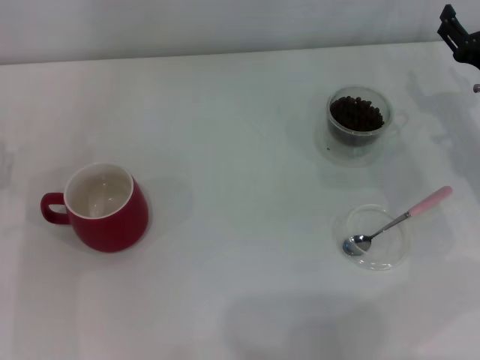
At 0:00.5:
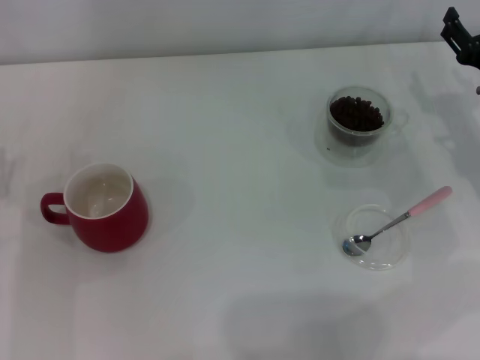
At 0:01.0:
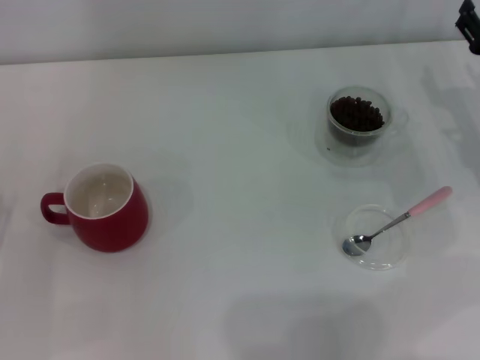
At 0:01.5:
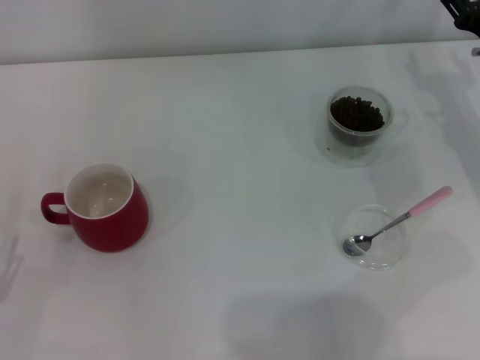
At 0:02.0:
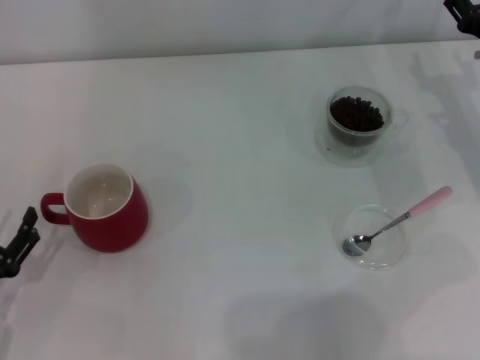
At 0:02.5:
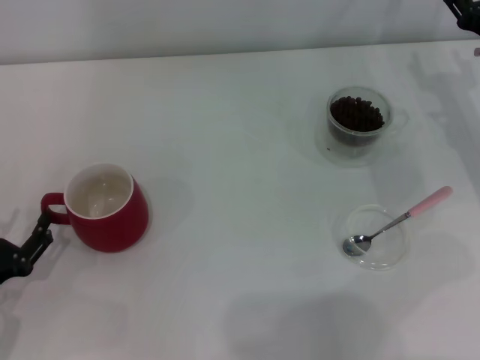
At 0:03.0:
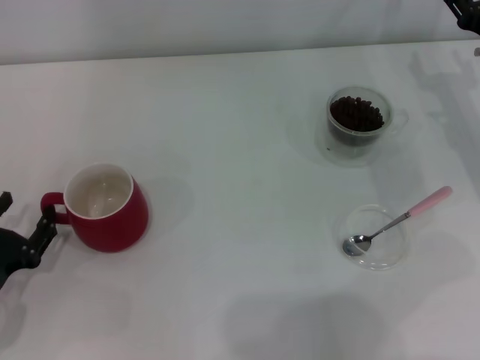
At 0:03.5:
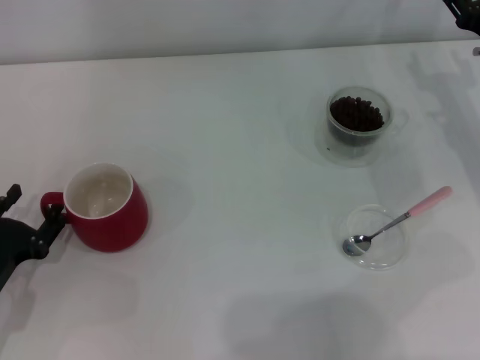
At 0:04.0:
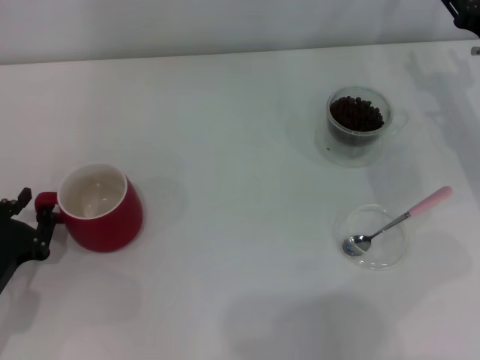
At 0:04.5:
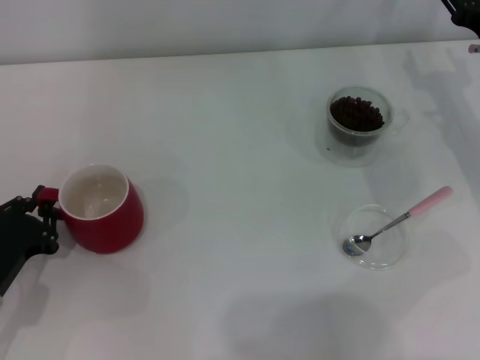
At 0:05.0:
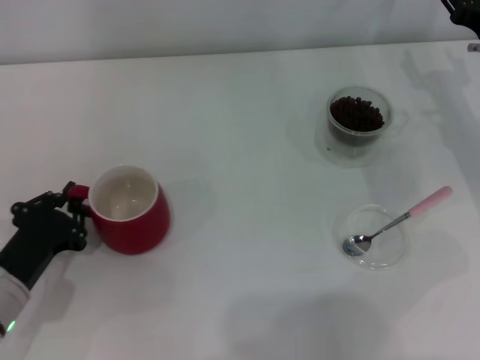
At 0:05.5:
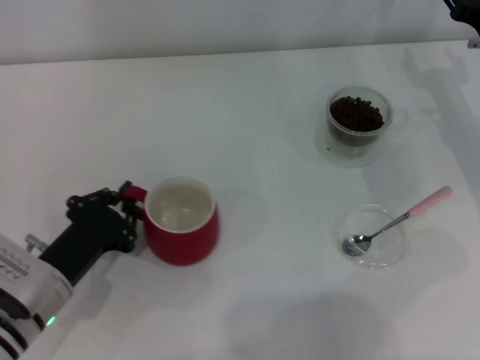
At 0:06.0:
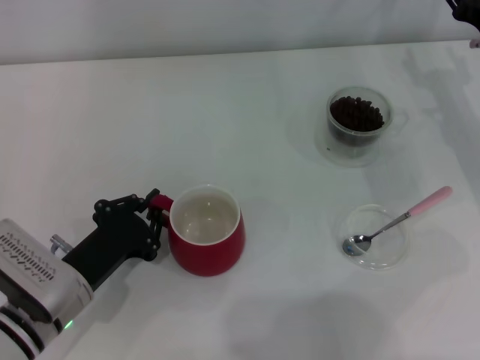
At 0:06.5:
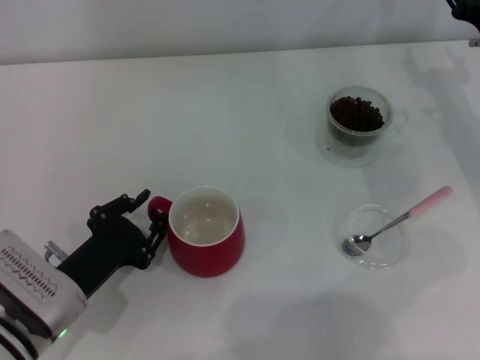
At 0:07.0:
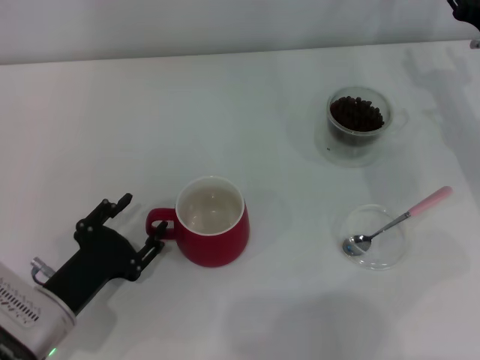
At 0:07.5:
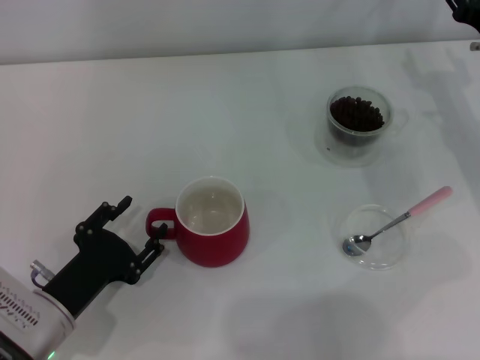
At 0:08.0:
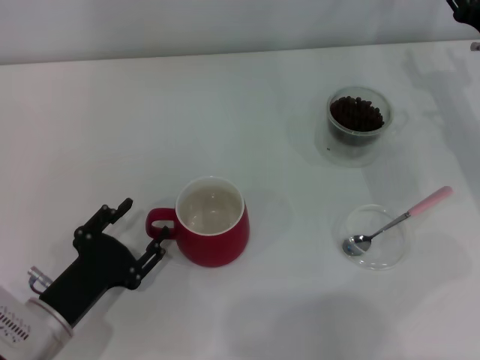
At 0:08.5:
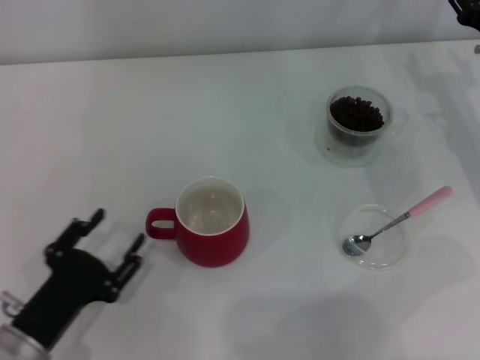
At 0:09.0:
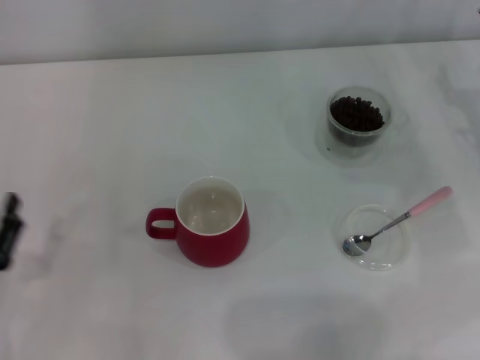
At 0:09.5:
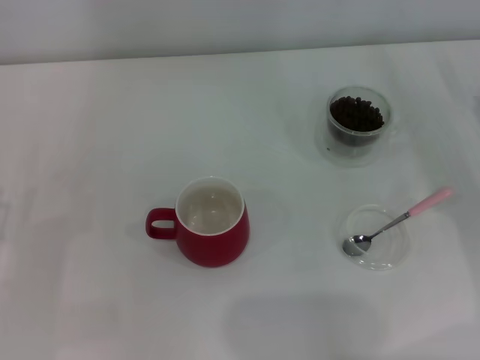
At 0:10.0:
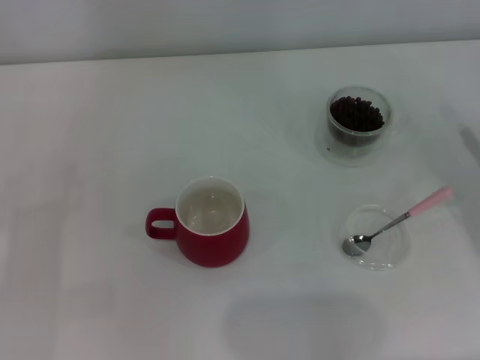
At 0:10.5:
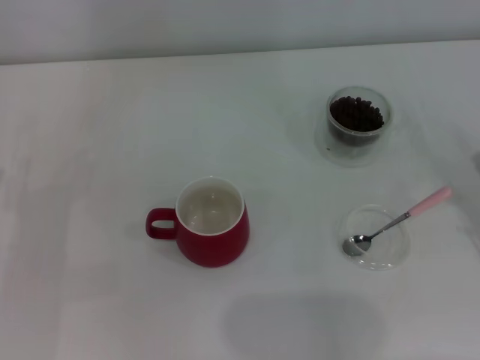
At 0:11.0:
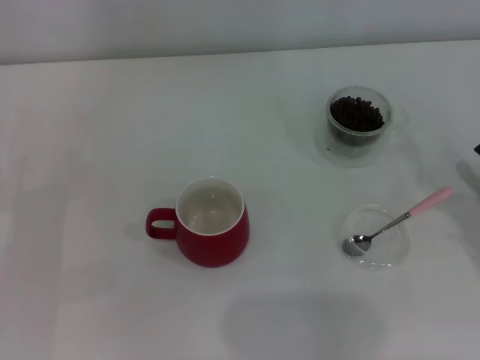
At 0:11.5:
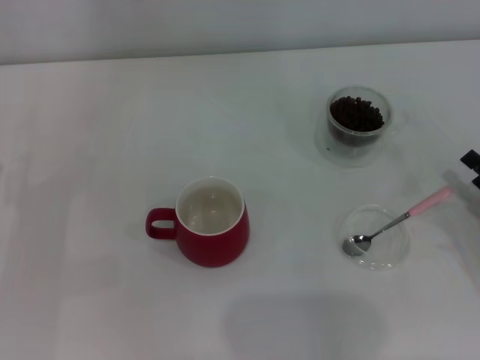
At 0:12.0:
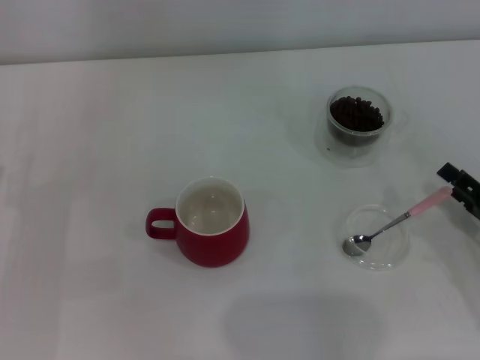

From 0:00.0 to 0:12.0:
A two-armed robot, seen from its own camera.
Task of the whole recording: Use a pink spoon to take out the coffee beans from the glass and pour them into the red cup.
Step, from 0:00.0 to 0:08.5: Move the cup to the center of view with the left gripper.
From 0:00.0 to 0:02.0: The left gripper shifts some 10 cm backward.
From 0:02.0 to 0:04.0: The left gripper closes.
From 0:04.0 to 0:06.0: The left gripper travels to the right by some 10 cm, and closes.
From 0:06.0 to 0:08.0: The left gripper opens.
From 0:08.0 to 0:10.0: The right gripper moves backward, to the right and downward, some 15 cm. Meanwhile the left gripper is displaced to the left by about 10 cm.
From 0:10.0 to 0:12.0: The right gripper heads backward, covering some 5 cm.

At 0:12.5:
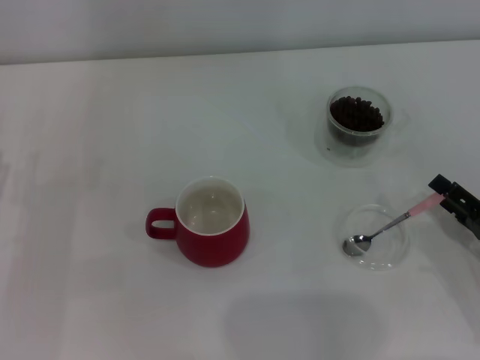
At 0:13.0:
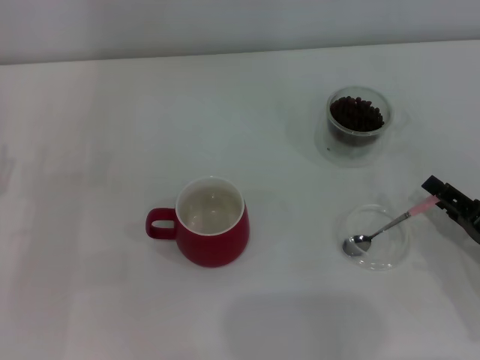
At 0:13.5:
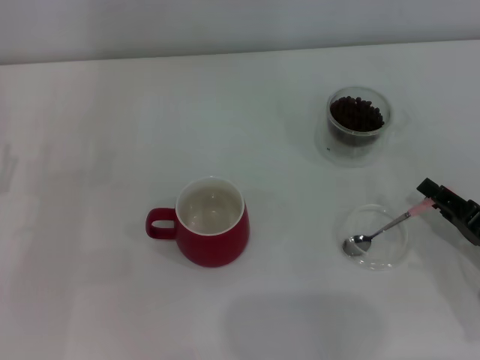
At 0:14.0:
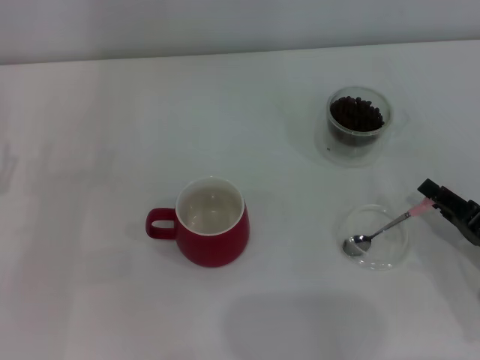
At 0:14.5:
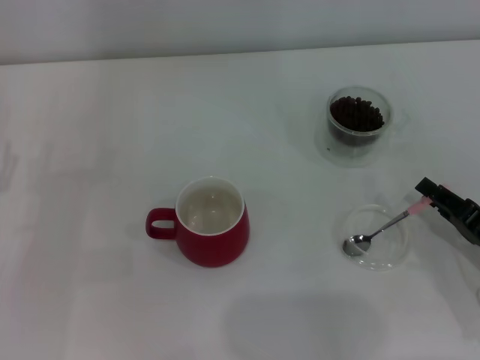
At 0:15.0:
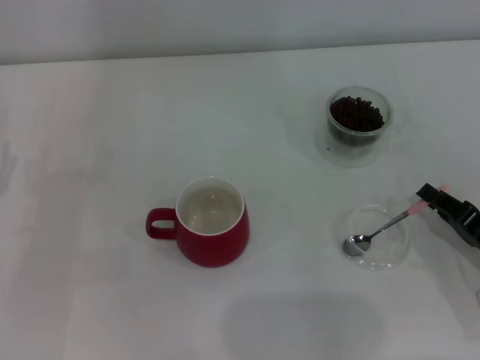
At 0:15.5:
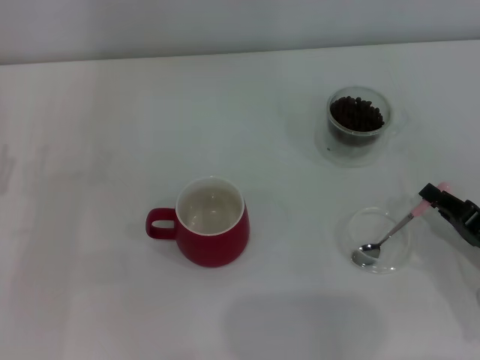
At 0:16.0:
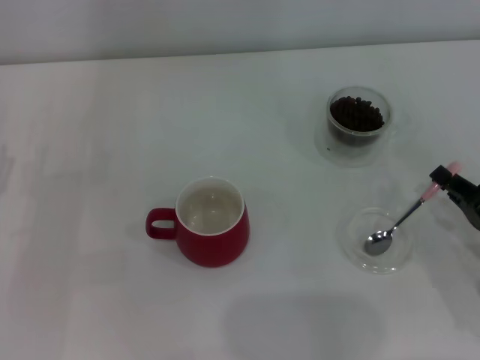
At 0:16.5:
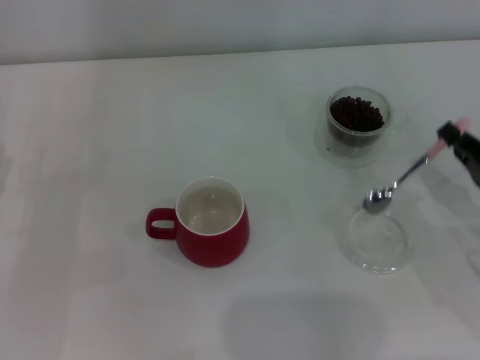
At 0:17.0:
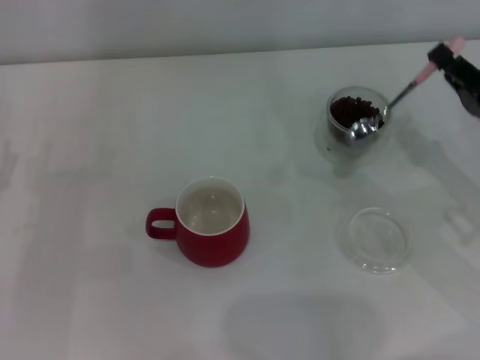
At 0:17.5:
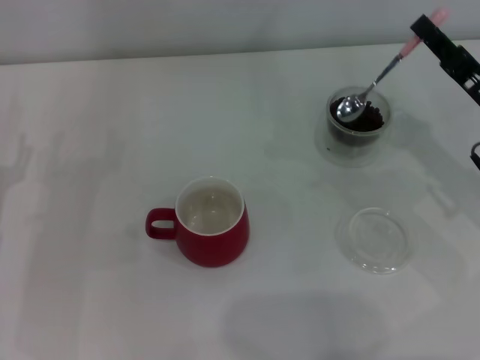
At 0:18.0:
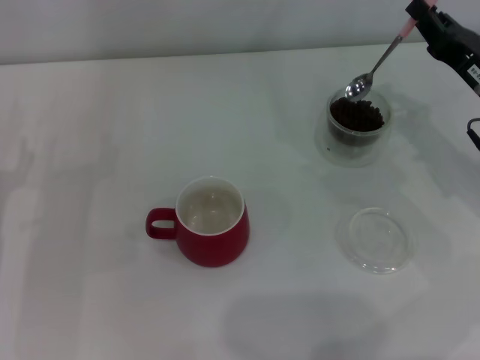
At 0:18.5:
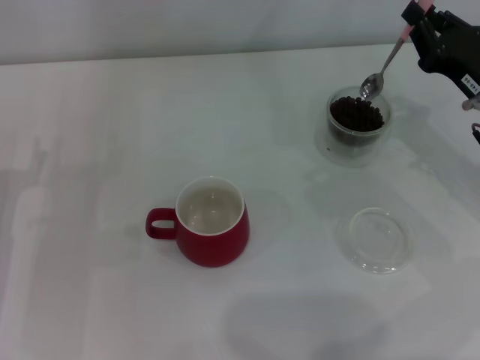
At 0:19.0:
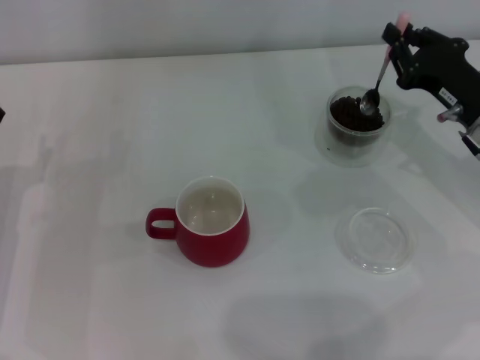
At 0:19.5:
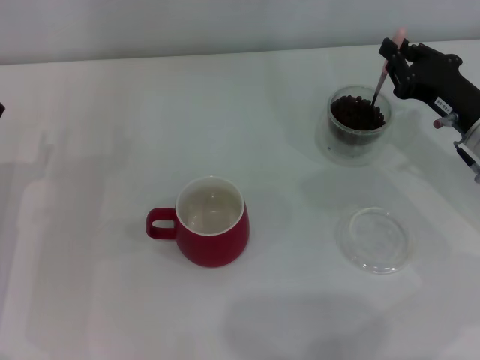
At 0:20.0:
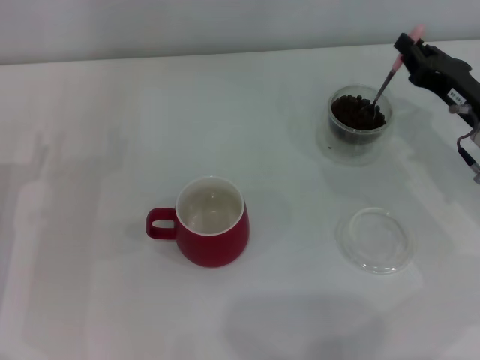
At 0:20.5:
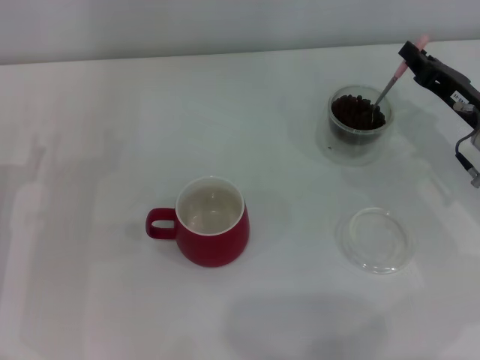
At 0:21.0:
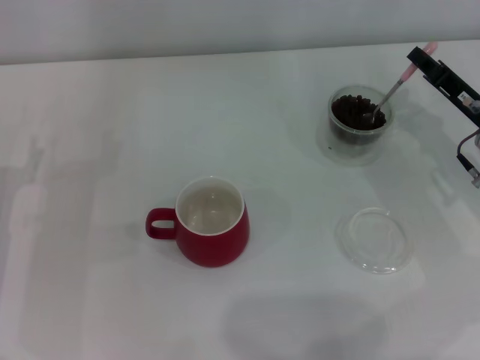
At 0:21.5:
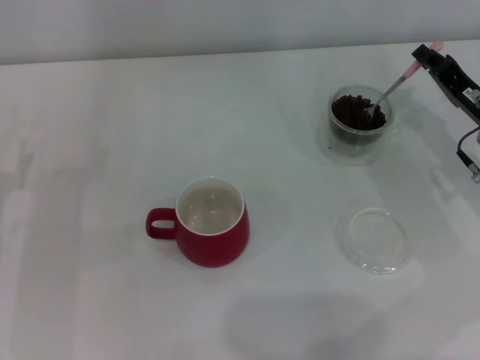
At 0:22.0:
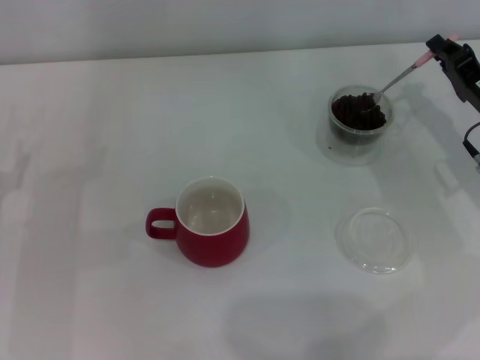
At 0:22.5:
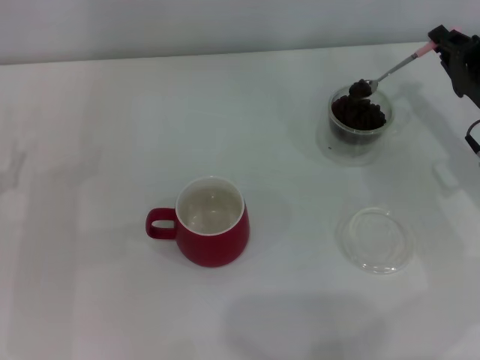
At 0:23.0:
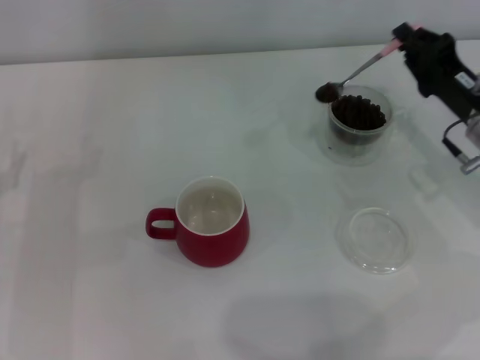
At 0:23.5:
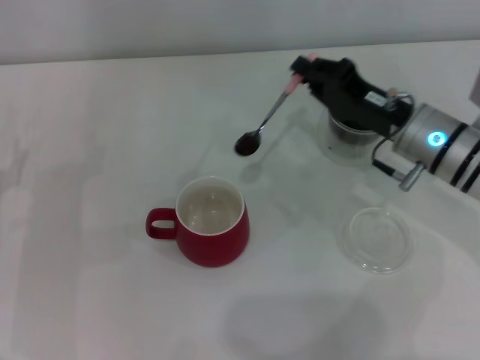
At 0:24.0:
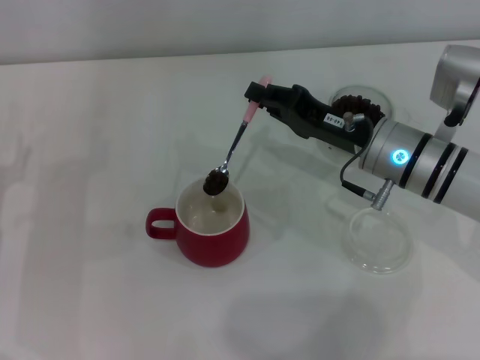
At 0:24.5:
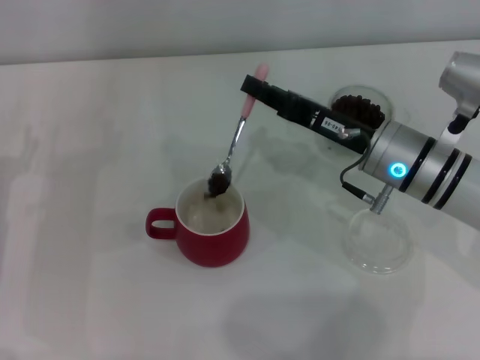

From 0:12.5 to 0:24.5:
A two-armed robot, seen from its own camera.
Task of the whole recording: Use a pink spoon to take out the coffee beans from the glass and pour them into the red cup.
Step, from 0:12.5 to 0:16.0: Pick up the spoon with the right gripper.
From 0:12.5 to 0:14.5: The right gripper closes its fingers.
From 0:14.5 to 0:16.5: The right gripper closes up.
From 0:16.5 to 0:18.5: The right gripper shifts about 10 cm forward and upward.
From 0:22.5 to 0:24.5: The right gripper moves to the left, roughly 15 cm.

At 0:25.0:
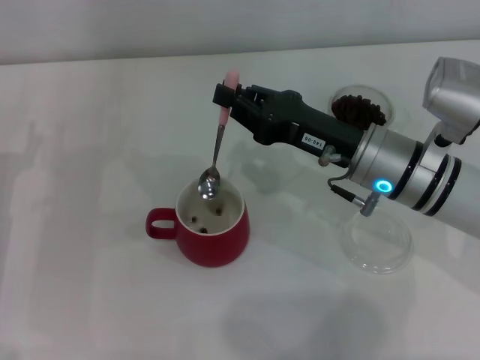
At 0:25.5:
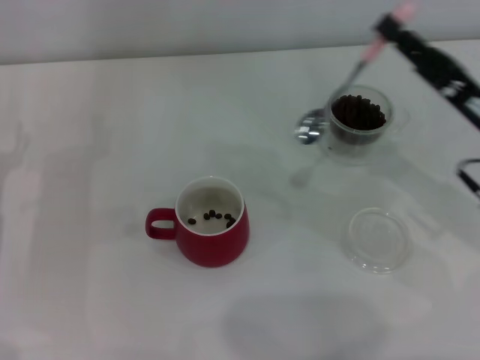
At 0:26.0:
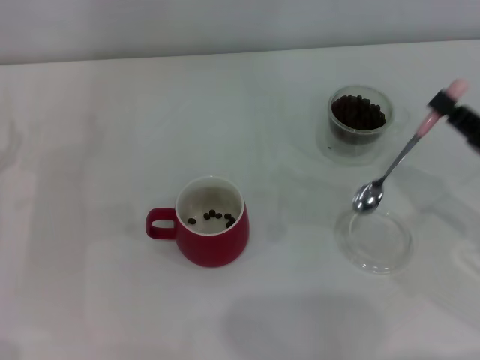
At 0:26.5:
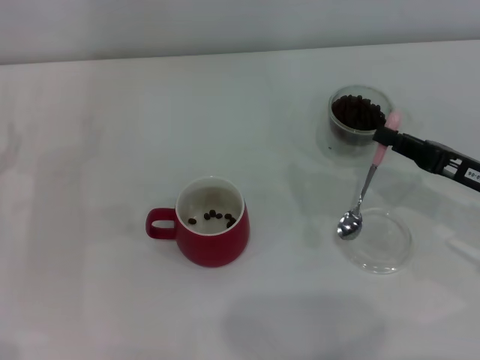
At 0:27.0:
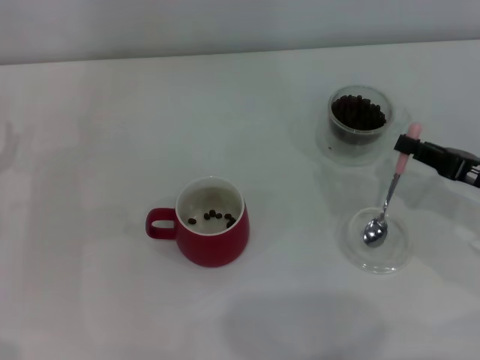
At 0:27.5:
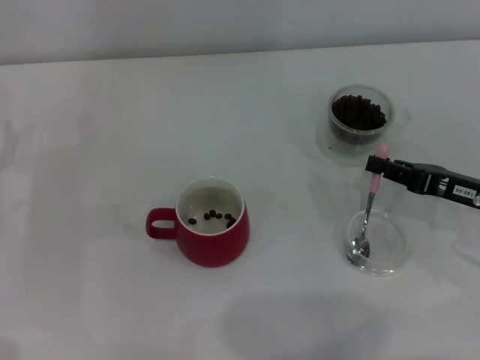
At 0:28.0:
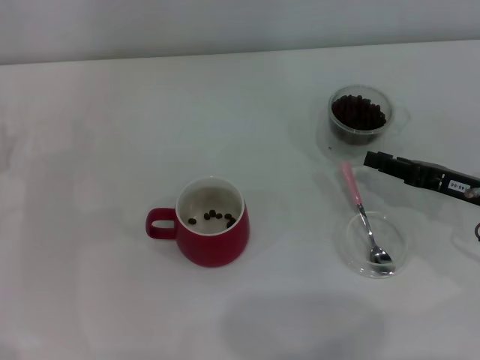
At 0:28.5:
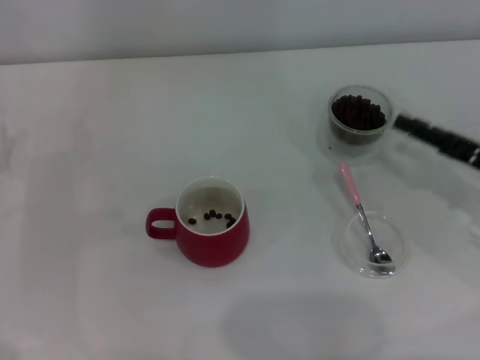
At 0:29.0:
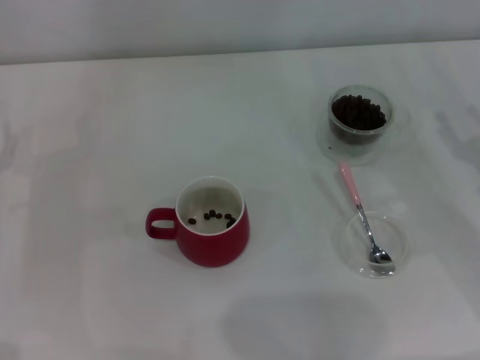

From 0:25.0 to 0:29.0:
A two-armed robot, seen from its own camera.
Task of the whole recording: Use a pink spoon to take out the coffee beans from the glass and pour them into the red cup.
Step, from 0:25.5 to 0:28.0: Place the spoon back in its original place with the right gripper.
From 0:25.0 to 0:27.0: The right gripper is displaced to the right by about 15 cm.
From 0:27.0 to 0:29.0: The right gripper opens.
